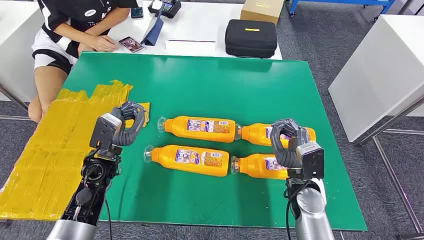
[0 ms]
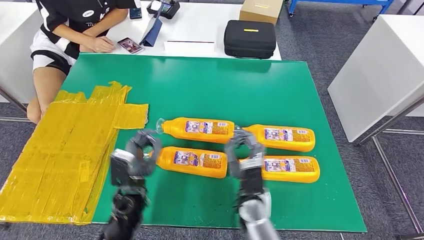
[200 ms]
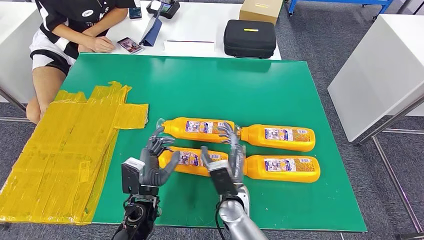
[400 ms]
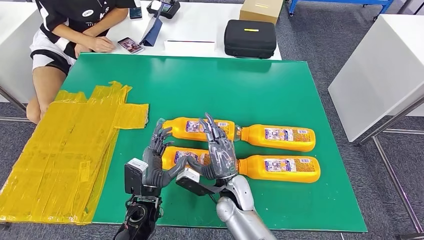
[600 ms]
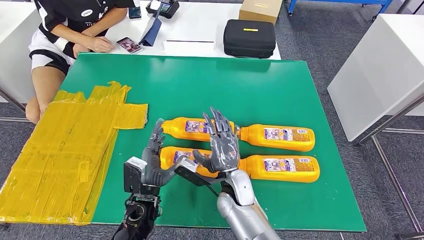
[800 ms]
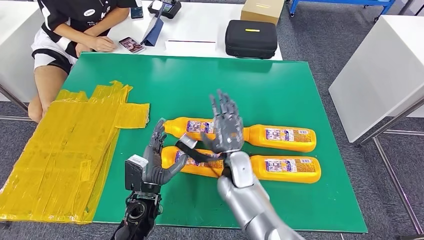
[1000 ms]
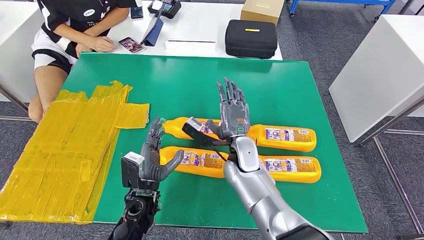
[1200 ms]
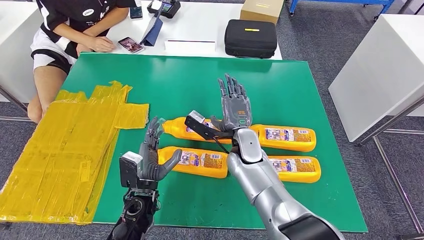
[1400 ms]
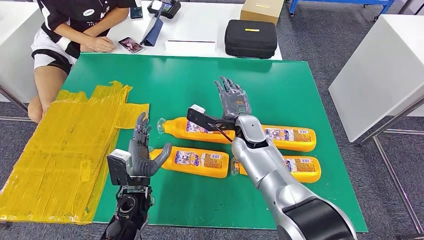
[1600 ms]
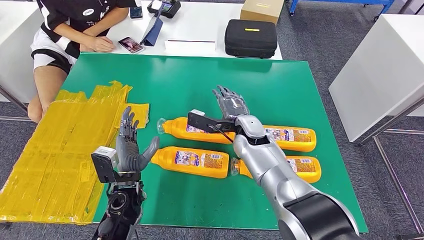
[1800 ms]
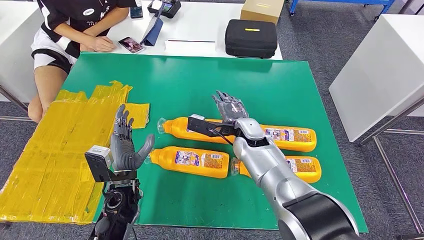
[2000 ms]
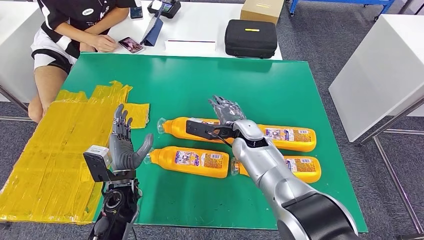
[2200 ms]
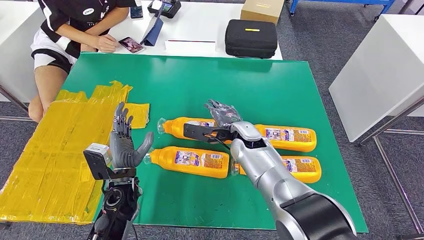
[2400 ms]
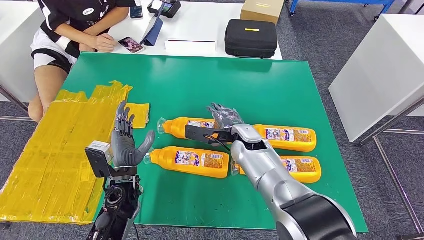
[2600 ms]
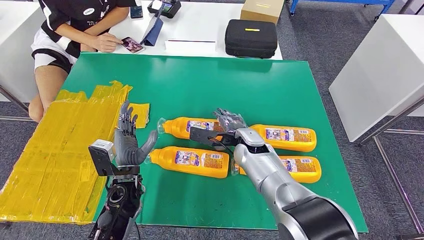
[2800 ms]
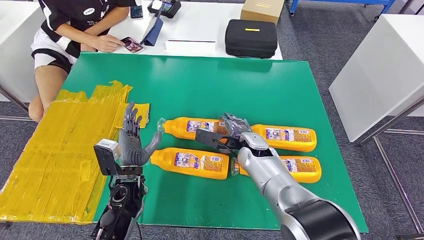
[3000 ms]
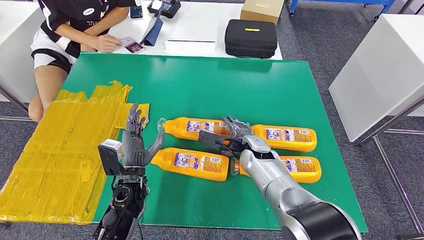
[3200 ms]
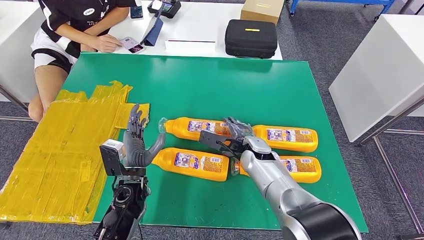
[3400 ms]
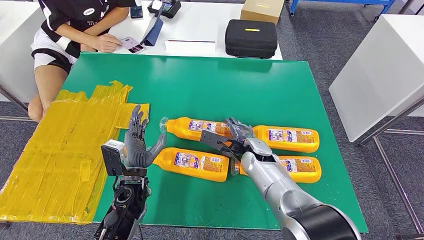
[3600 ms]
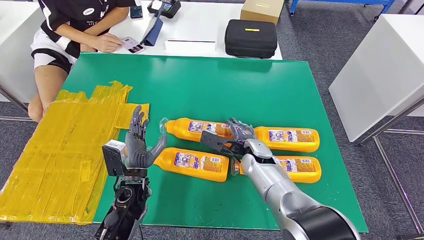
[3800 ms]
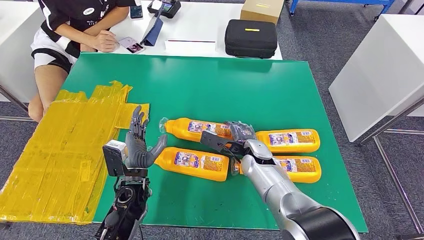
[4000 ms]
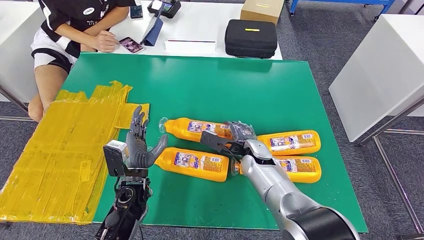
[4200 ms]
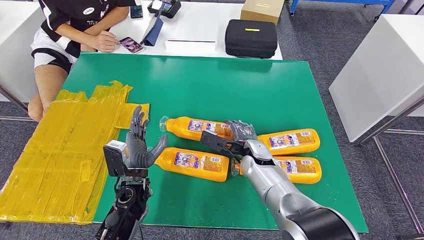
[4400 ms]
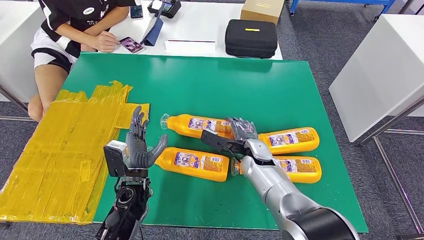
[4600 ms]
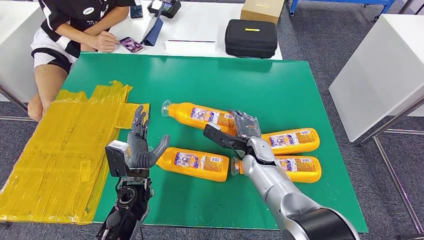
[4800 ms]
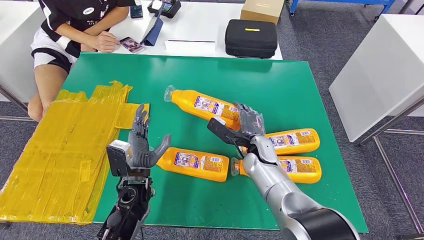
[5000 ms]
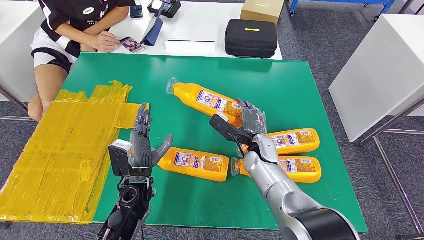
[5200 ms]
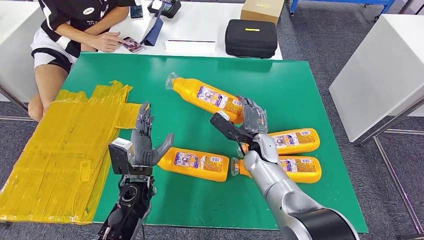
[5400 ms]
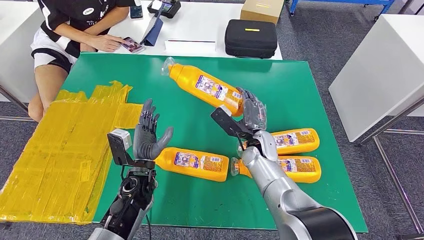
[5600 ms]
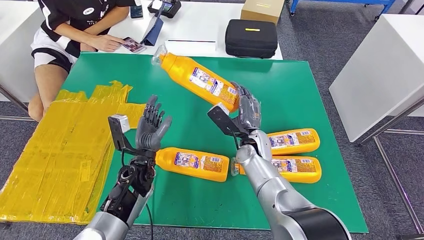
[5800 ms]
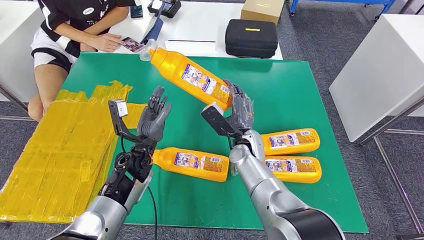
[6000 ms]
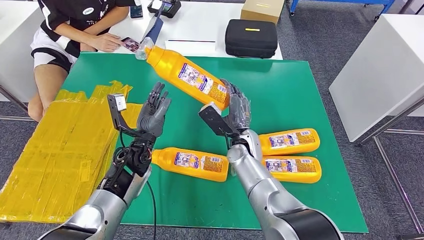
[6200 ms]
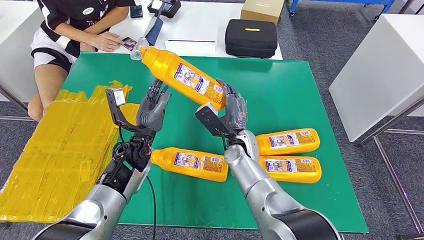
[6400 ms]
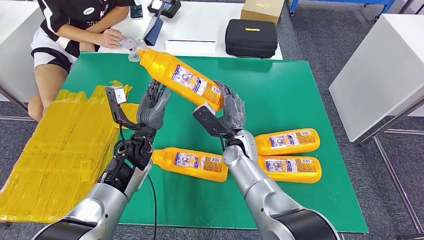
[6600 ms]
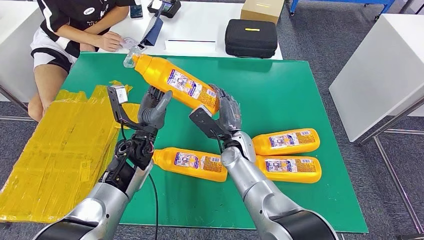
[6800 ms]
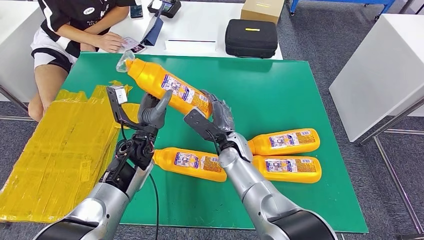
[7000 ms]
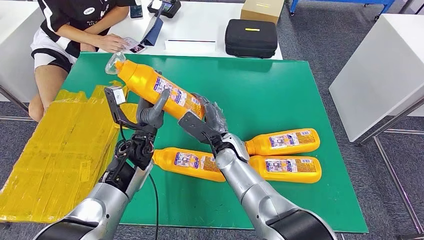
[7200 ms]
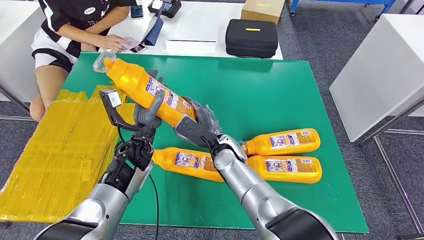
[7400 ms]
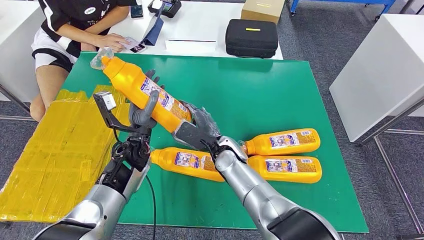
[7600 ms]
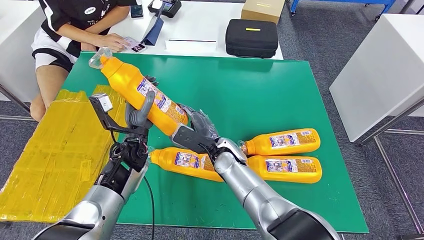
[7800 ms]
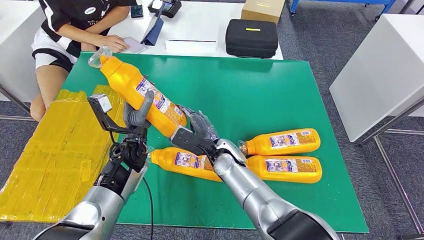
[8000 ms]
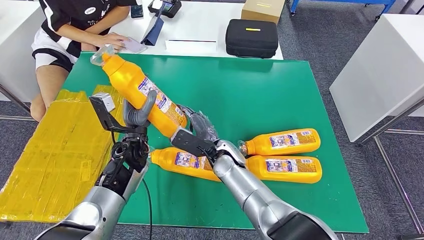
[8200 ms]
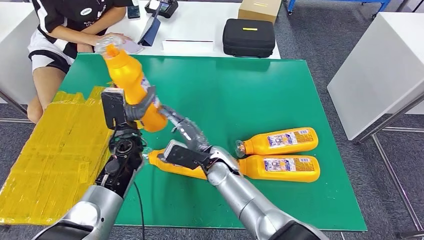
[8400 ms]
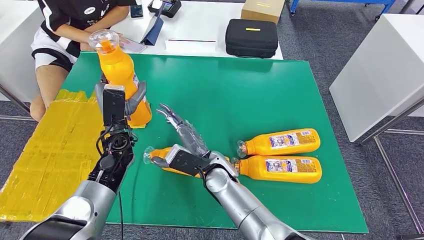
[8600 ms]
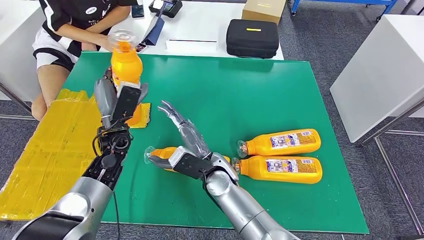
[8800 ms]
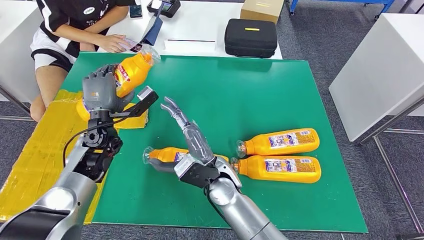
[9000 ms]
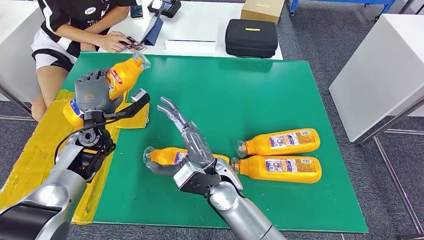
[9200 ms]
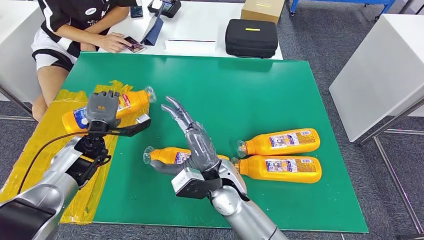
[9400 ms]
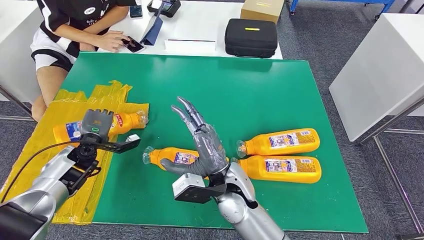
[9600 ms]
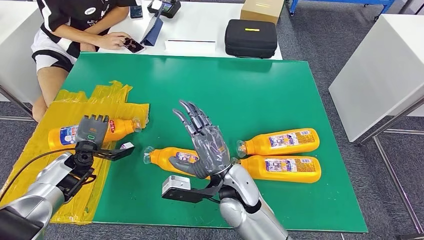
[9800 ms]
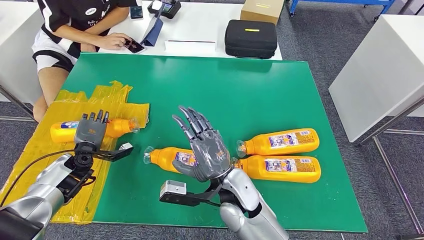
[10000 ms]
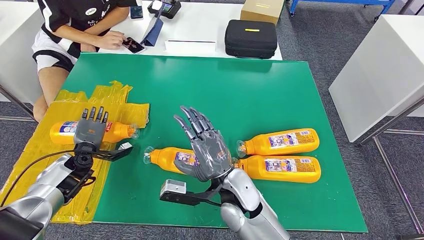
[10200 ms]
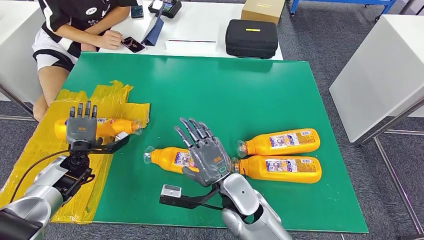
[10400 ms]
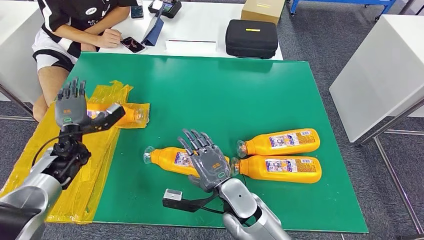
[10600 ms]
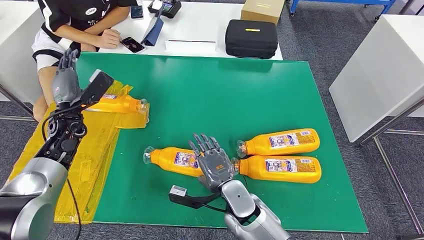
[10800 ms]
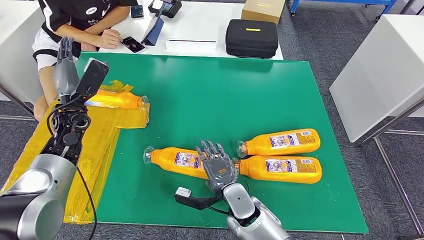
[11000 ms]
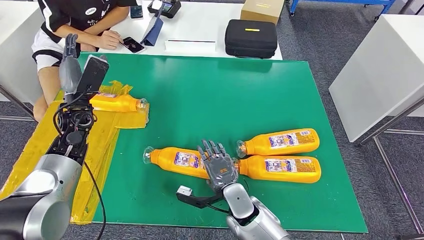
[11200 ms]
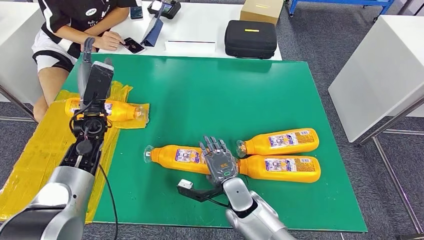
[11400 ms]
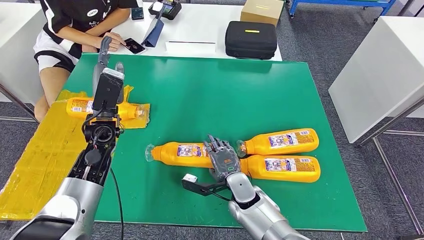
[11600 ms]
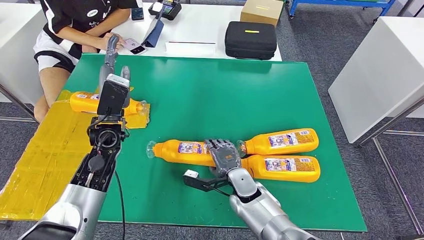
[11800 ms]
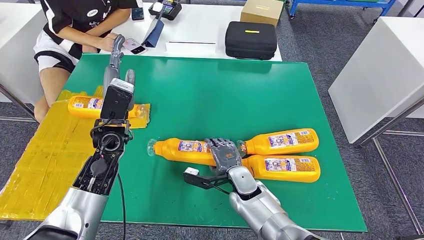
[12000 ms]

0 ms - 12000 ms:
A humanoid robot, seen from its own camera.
Step, 0 ms - 9000 ms: Take the bottle from the table.
1600 ms - 3000 ms: The right hand shifts by roughly 5 cm.
3000 ms - 4400 ms: The hands make only small movements.
4400 ms - 6000 ms: The left hand moves forward, approximately 5 cm. The right hand ends up some 5 cm from where it was.
6000 ms - 7600 ms: The right hand shifts some 5 cm to the left.

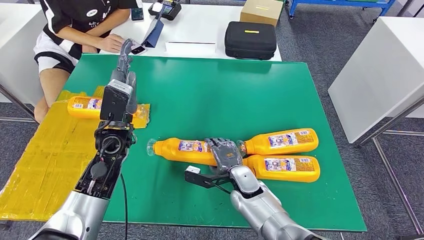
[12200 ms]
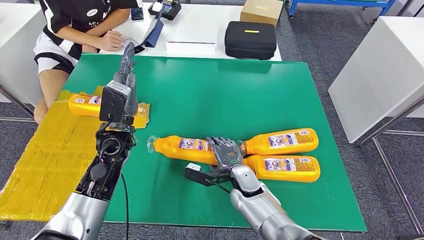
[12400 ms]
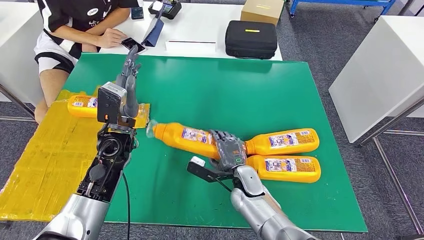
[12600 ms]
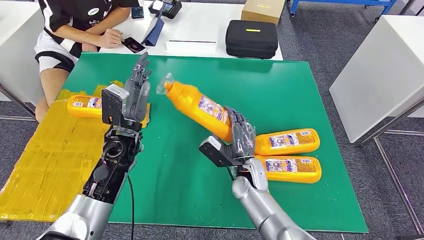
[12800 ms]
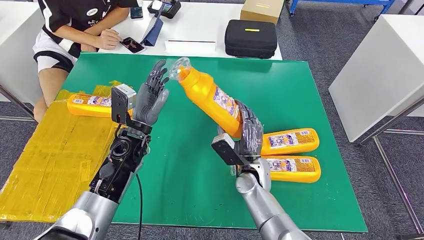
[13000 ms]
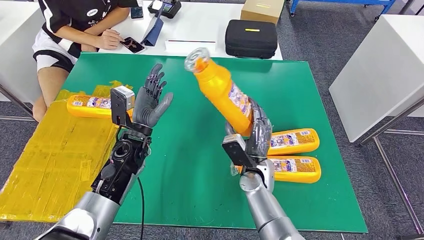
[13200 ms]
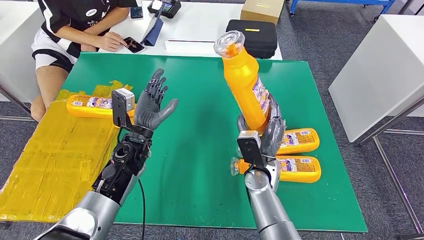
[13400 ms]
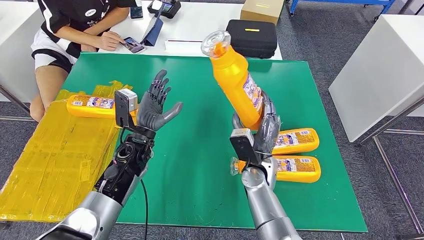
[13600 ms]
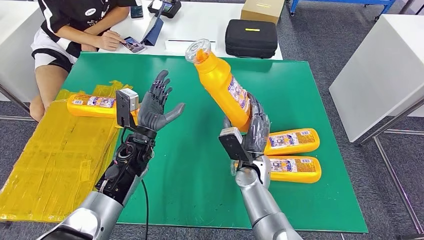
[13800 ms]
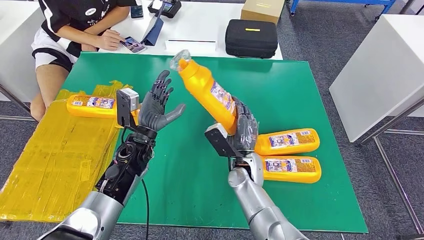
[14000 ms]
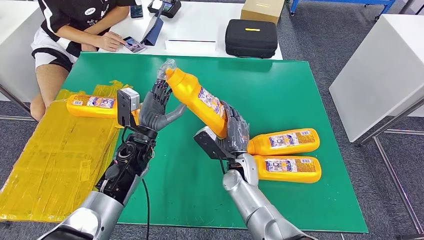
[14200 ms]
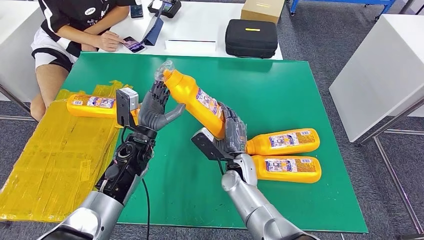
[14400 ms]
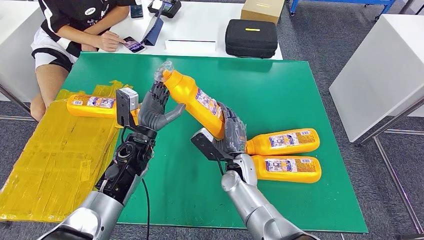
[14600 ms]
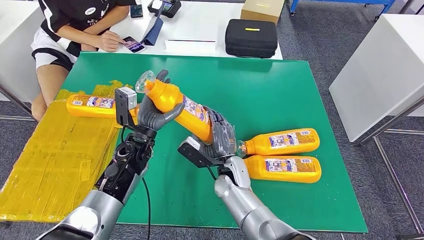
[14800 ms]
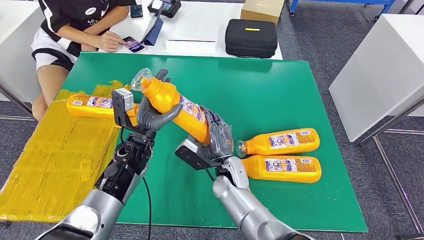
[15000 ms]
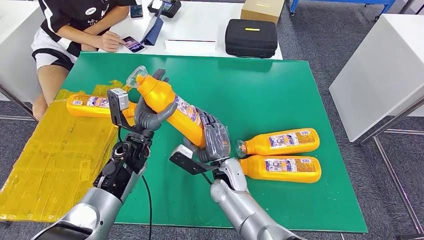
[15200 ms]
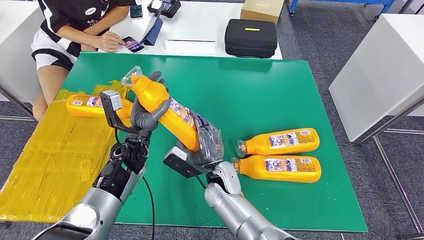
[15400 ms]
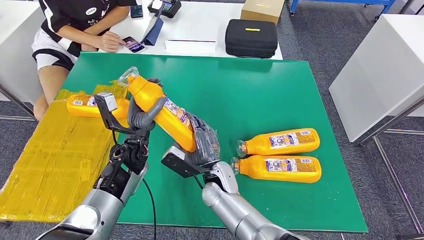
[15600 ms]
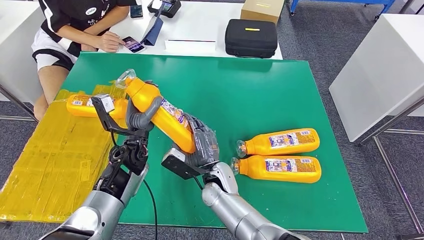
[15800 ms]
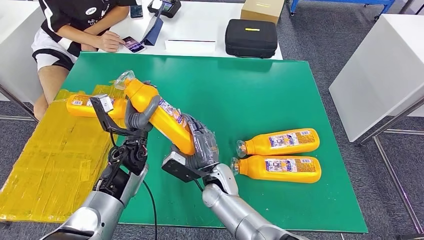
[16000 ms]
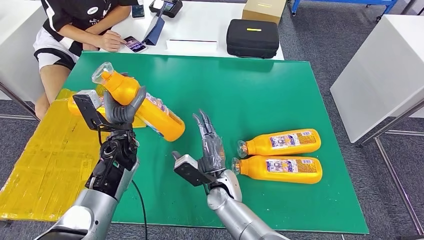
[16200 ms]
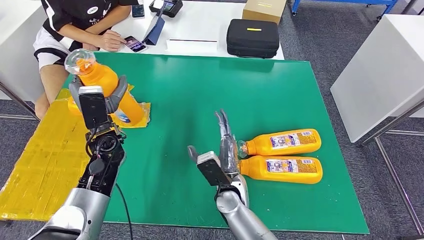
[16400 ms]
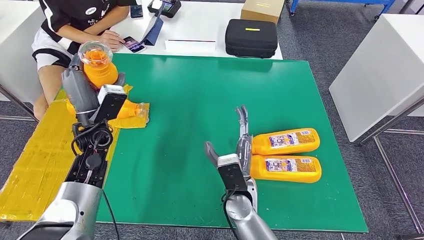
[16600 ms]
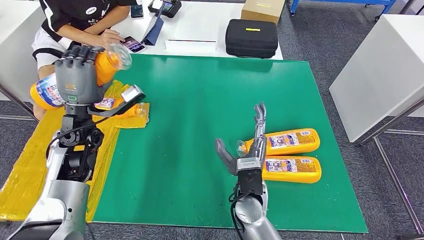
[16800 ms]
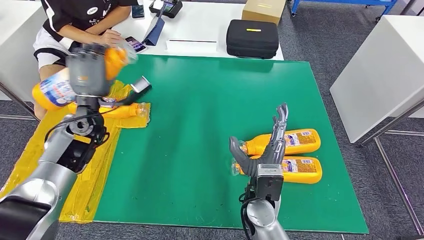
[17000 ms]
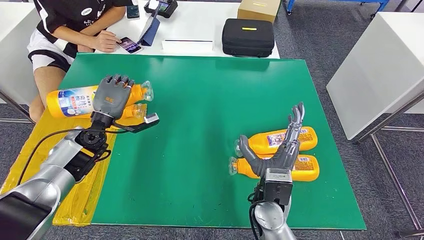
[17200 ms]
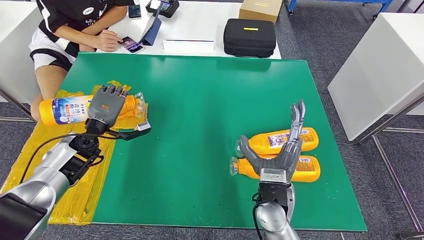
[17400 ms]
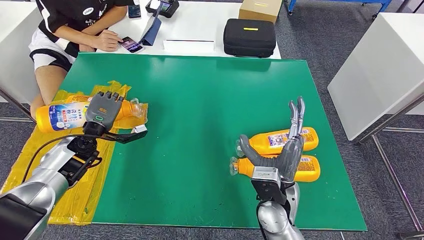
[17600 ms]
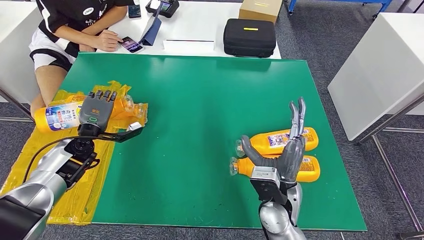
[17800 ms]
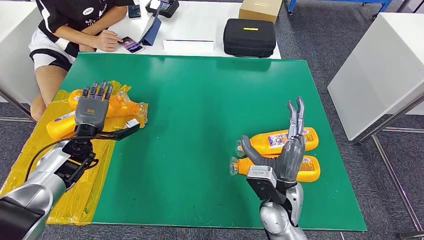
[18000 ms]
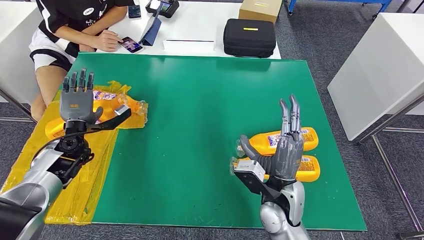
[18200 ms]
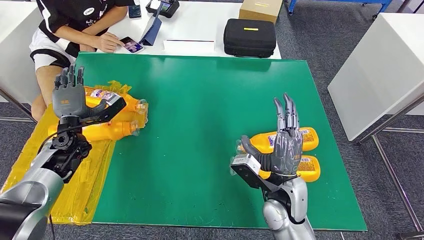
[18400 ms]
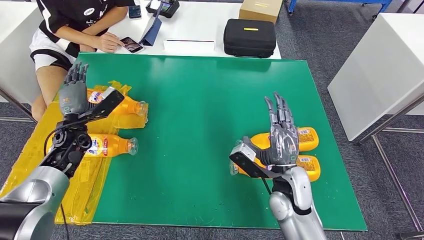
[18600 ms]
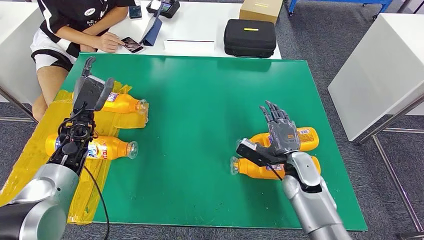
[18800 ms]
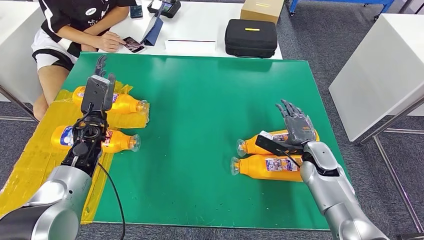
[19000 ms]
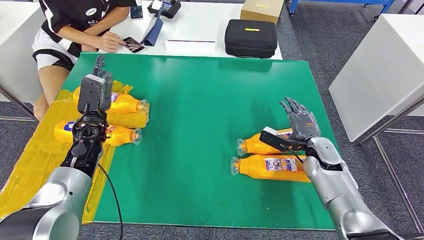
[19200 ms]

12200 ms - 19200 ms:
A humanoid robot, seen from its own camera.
Step, 12400 ms - 15800 ms: Pick up the bottle from the table.
Step, 16000 ms - 18800 ms: Flip the bottle to face forward.
13600 ms - 15000 ms: The right hand moves to the left, approximately 10 cm.
